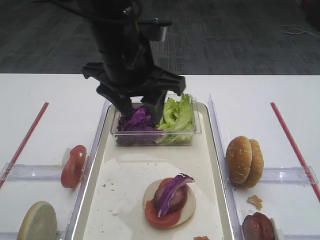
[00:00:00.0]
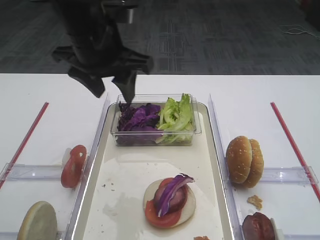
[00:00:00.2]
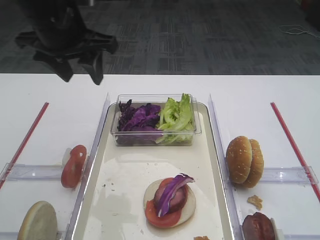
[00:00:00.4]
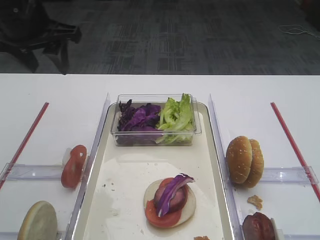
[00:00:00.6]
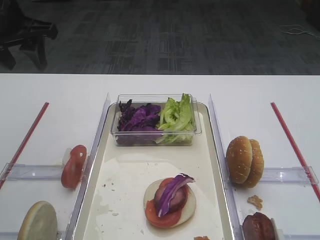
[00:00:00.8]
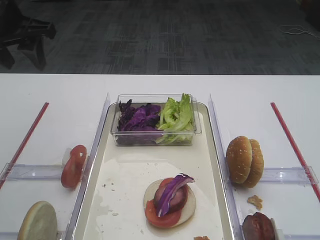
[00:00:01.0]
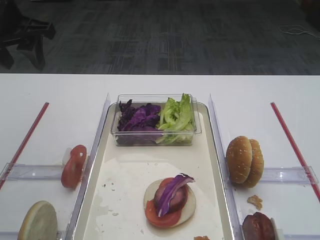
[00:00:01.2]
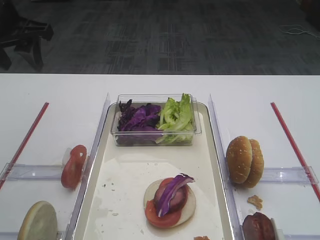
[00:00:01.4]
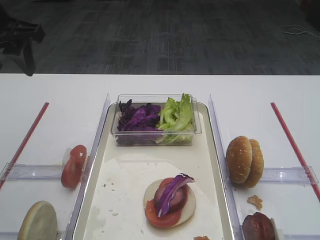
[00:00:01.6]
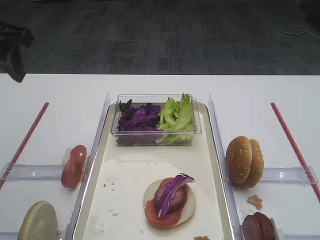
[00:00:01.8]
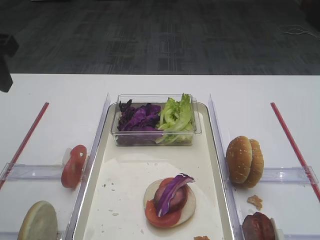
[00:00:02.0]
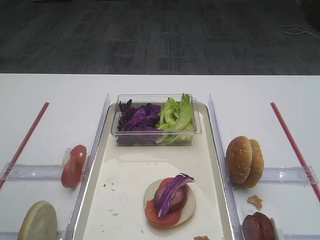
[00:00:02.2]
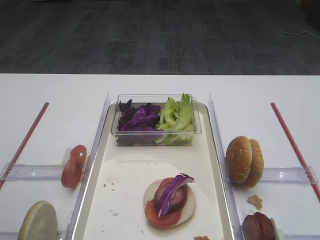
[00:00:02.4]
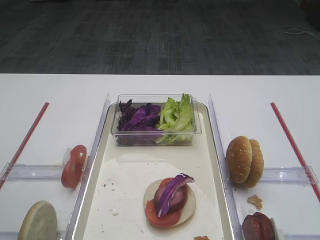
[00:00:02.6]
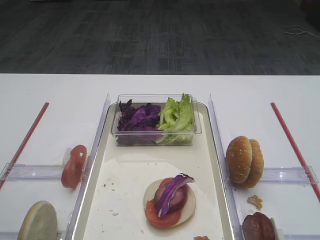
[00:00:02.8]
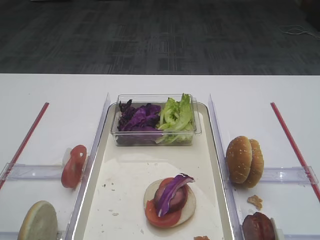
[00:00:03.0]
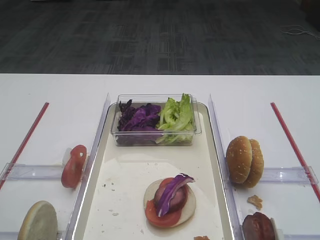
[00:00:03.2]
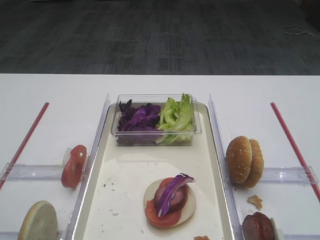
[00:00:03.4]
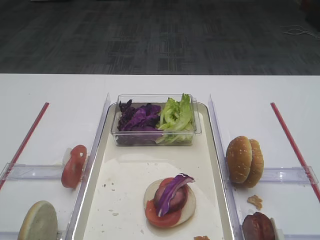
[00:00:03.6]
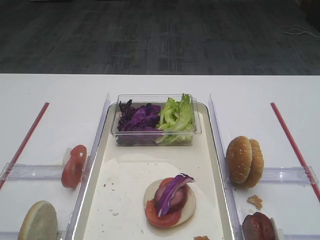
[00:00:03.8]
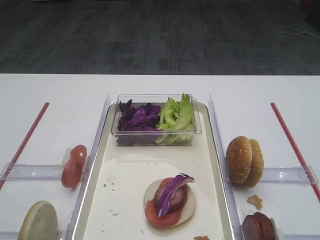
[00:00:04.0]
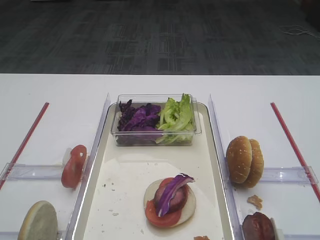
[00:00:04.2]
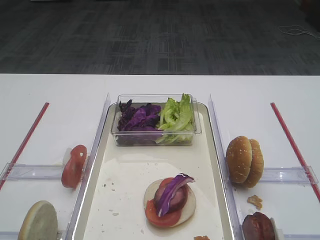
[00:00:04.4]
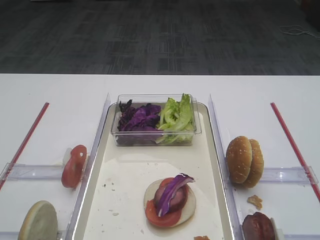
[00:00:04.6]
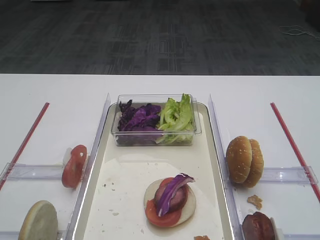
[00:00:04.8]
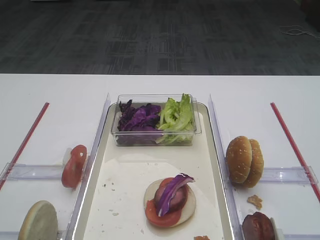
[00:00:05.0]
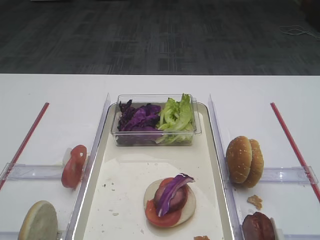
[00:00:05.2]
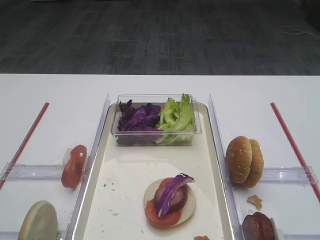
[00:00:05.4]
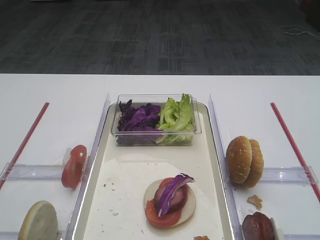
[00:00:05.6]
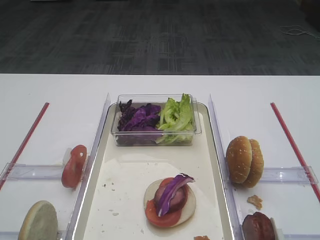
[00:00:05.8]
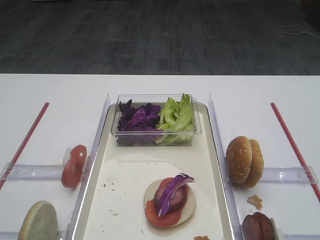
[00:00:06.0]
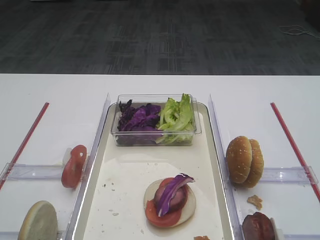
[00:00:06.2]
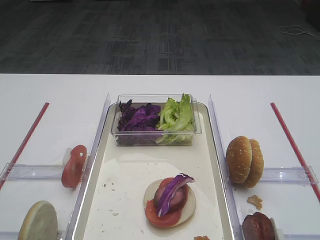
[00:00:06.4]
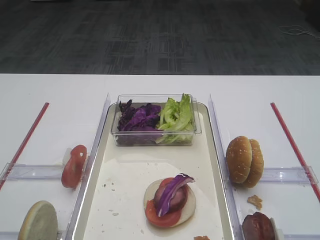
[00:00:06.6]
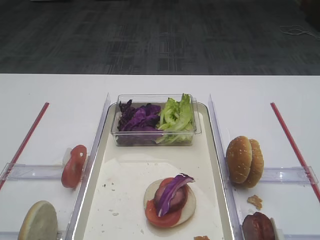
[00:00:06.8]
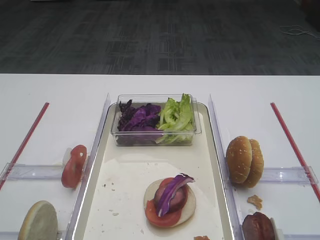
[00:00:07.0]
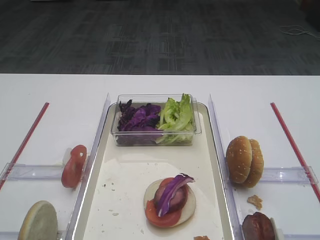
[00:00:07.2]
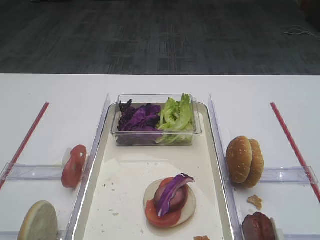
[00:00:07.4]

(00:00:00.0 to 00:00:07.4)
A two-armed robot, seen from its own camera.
00:00:00.0 - 00:00:01.4: The left gripper goes some 20 cm to the left.
00:00:01.4 - 00:00:03.0: The left gripper is displaced backward by roughly 25 cm.
00:00:04.4 - 00:00:07.4: Both grippers stay about where they are.

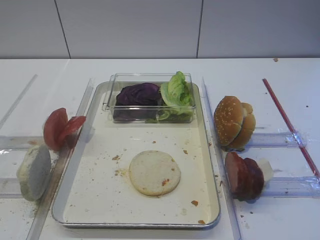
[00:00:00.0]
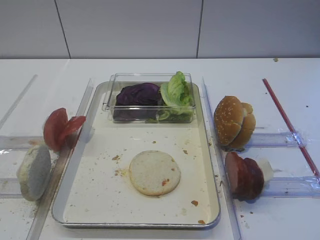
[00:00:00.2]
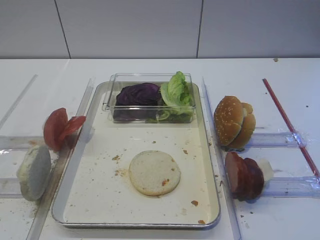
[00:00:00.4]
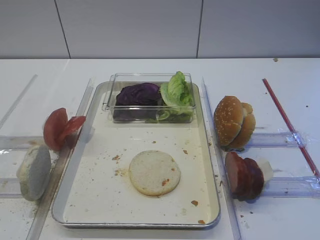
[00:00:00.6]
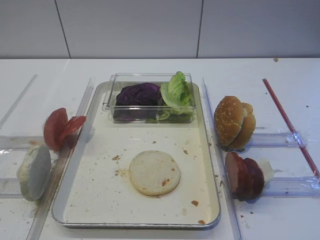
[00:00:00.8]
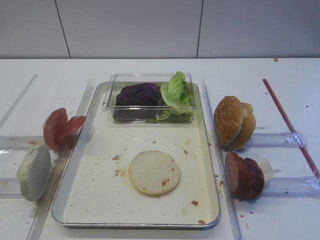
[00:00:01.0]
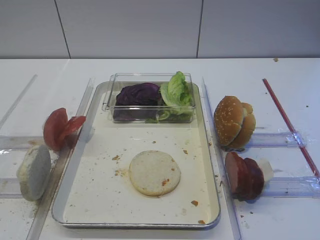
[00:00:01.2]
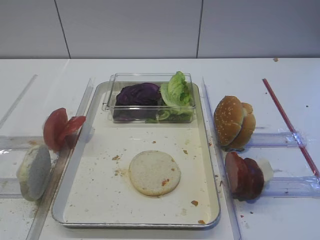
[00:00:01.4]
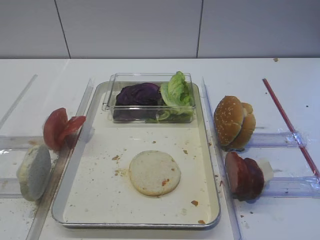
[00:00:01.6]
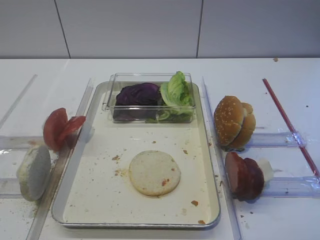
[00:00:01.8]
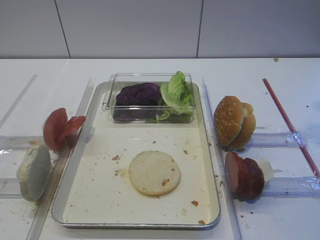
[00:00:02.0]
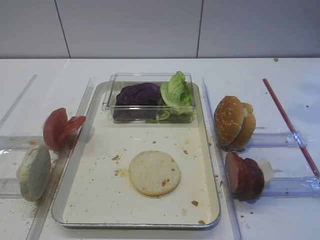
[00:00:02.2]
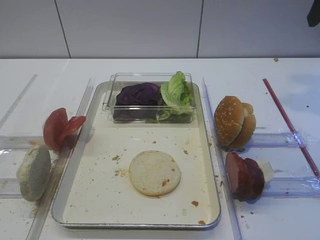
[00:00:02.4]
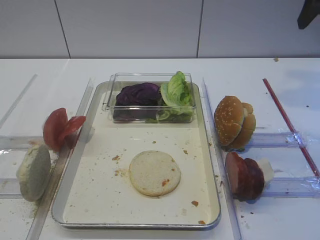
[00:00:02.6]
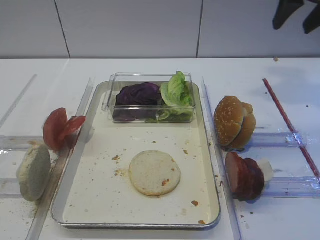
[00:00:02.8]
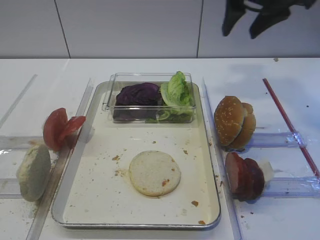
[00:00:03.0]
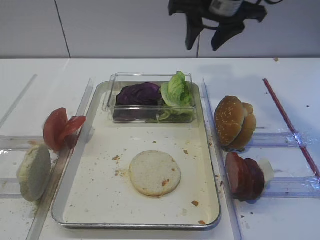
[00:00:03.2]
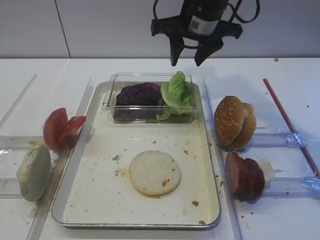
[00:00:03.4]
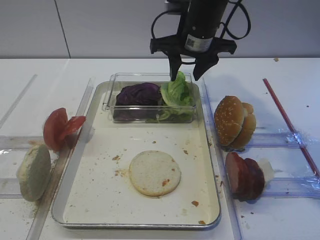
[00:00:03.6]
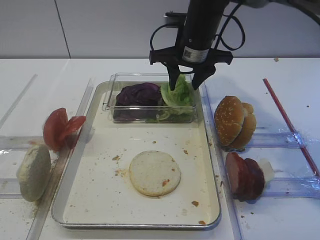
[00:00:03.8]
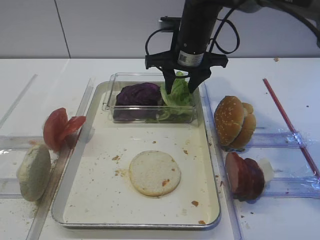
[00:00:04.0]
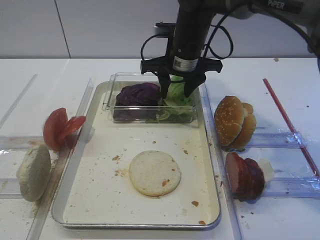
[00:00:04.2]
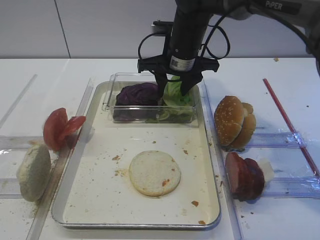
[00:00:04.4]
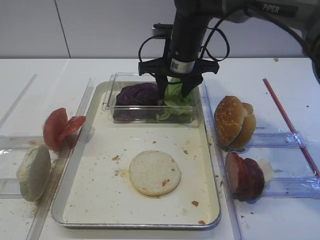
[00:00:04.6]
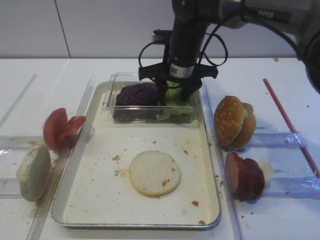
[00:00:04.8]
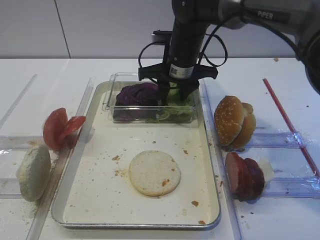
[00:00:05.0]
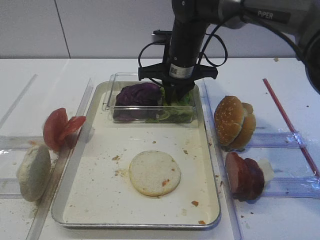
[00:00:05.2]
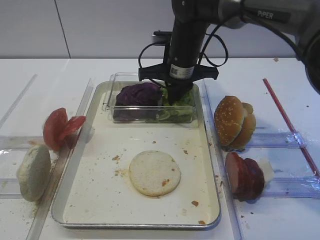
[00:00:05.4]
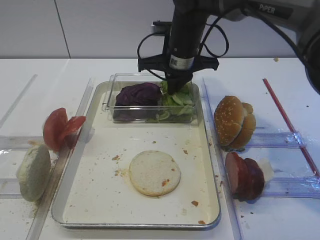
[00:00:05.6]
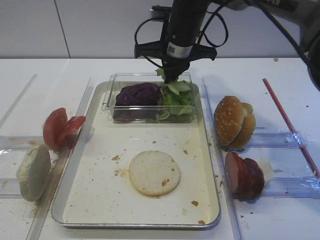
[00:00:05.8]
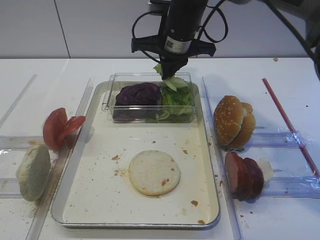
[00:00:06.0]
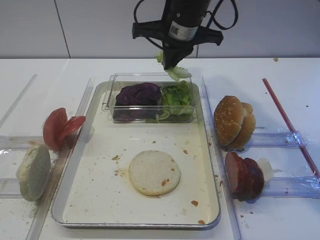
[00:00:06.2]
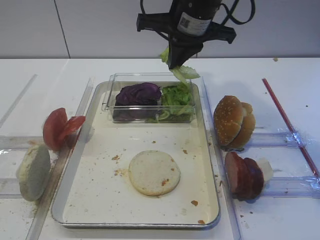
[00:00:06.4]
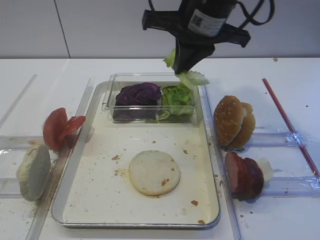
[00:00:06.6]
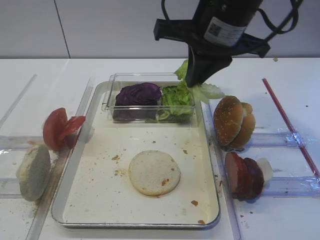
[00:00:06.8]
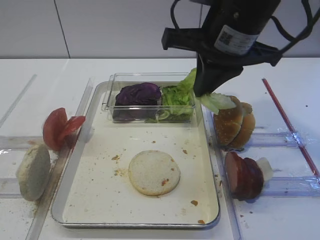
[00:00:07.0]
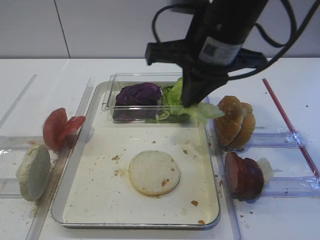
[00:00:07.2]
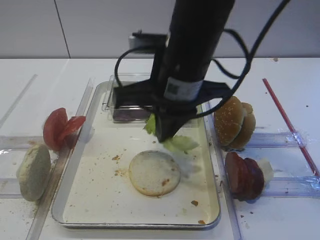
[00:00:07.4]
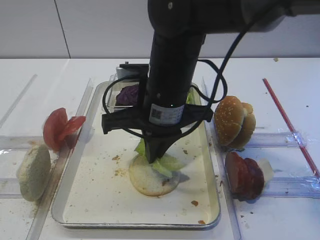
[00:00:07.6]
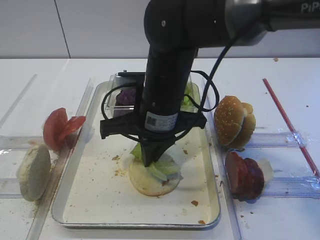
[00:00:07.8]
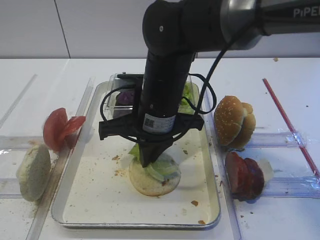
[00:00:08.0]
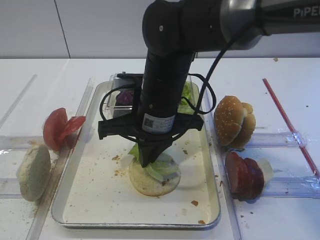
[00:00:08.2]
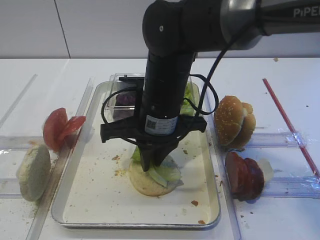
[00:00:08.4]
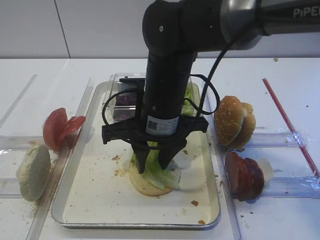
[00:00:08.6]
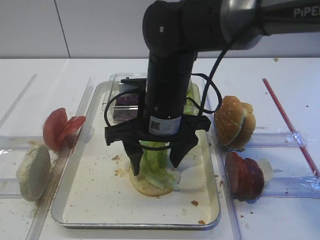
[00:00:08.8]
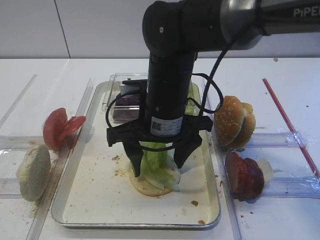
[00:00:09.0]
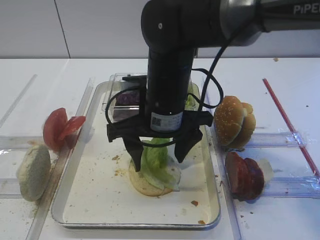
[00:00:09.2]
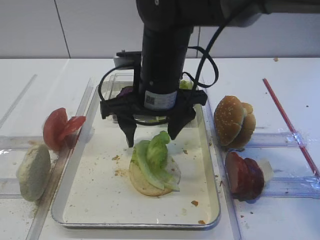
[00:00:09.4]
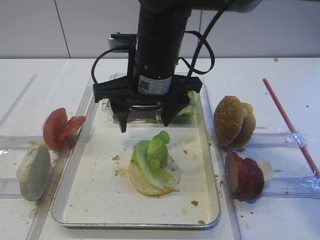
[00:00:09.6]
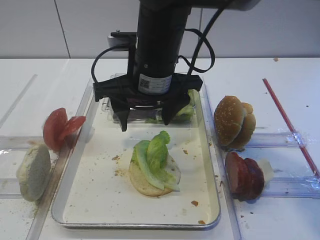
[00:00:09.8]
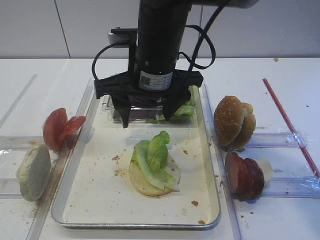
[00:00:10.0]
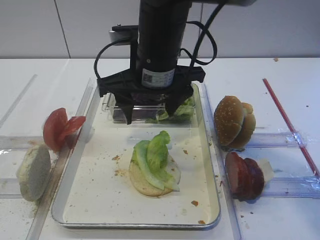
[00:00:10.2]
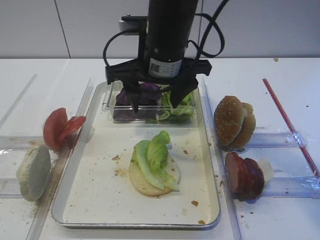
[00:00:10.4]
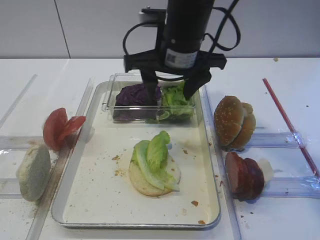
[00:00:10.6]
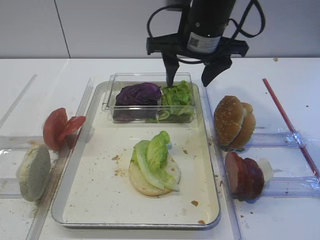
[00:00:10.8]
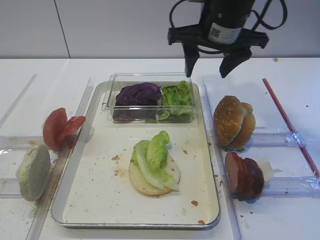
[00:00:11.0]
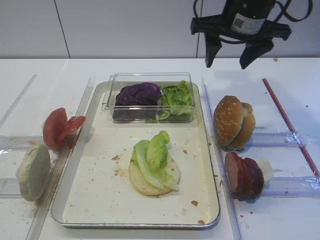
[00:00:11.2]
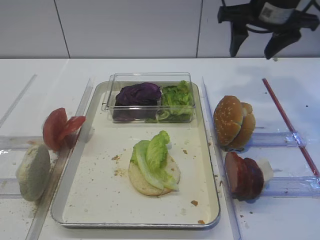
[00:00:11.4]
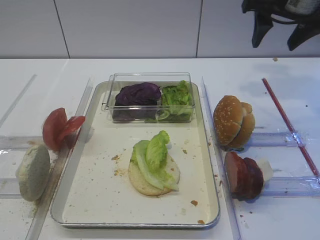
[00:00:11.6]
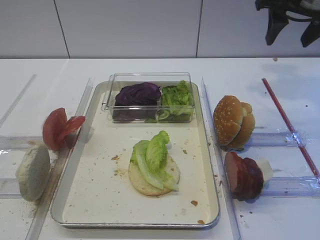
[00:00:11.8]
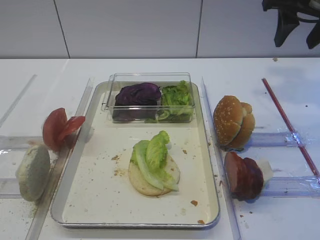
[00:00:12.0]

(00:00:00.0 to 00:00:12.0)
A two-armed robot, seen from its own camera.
Step, 00:00:00.0 - 00:00:06.2: Pick up the lettuce leaf with the right gripper.
Step, 00:00:06.4 - 00:00:10.2: Place the lettuce leaf on the bread slice with the right gripper.
00:00:01.6 - 00:00:03.0: The right gripper moves forward, about 30 cm.
00:00:03.0 - 00:00:04.4: The right gripper heads downward and to the left, covering some 20 cm.
00:00:04.4 - 00:00:06.0: The right gripper closes its fingers.
00:00:06.0 - 00:00:07.6: The right gripper is displaced backward by approximately 15 cm.
00:00:07.6 - 00:00:09.0: The right gripper opens.
00:00:09.0 - 00:00:10.4: The right gripper goes about 5 cm upward.
00:00:10.4 - 00:00:12.0: The right gripper shifts about 25 cm to the right.

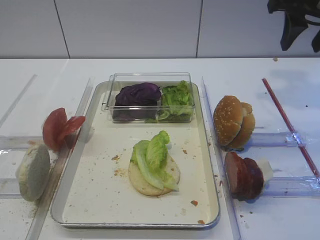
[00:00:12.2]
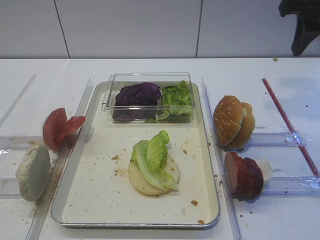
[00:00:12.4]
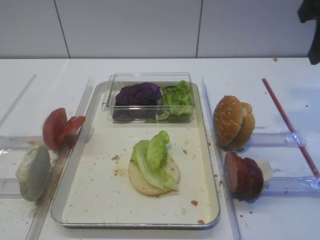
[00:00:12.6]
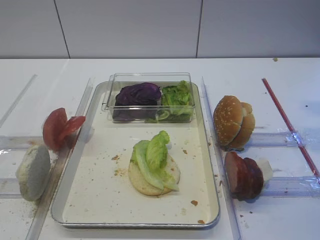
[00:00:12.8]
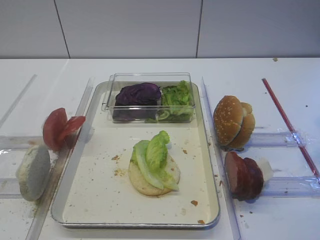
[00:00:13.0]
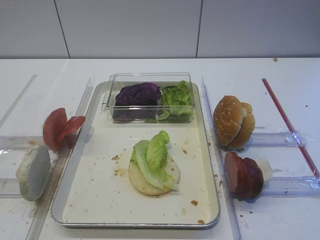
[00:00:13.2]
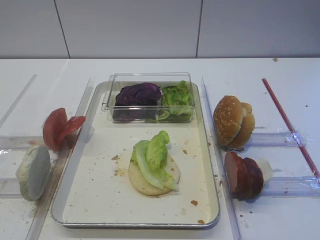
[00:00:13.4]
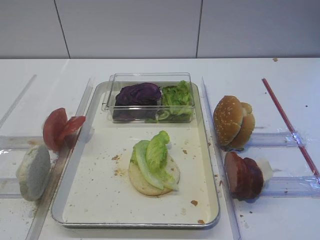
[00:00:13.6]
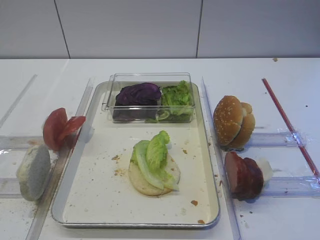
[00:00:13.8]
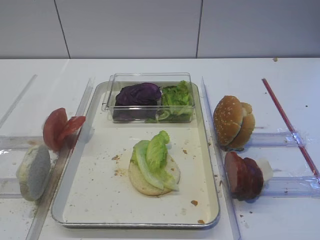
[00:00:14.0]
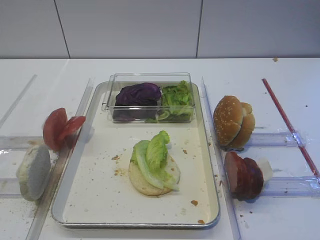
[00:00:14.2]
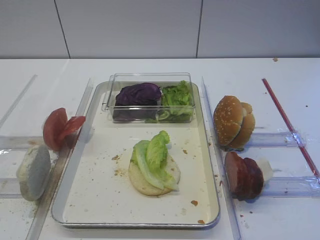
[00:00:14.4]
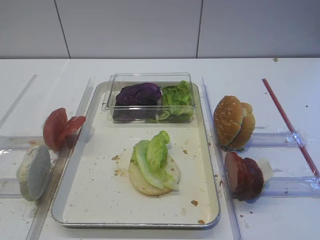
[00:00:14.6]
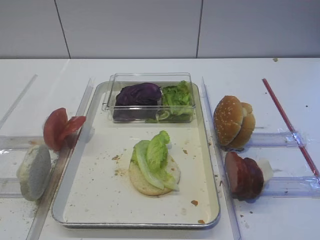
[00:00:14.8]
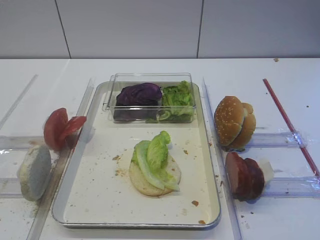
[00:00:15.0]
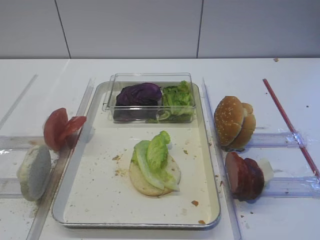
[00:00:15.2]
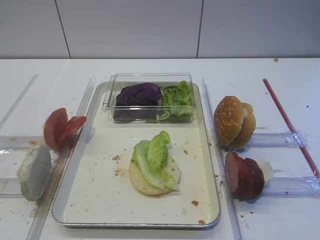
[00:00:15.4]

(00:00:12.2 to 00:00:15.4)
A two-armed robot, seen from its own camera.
00:00:12.2 - 00:00:13.8: The right gripper heads backward, covering roughly 30 cm.
